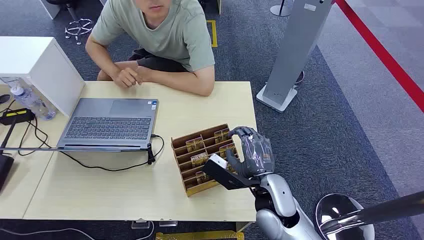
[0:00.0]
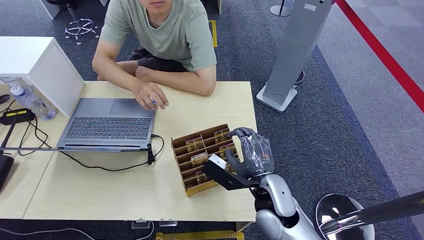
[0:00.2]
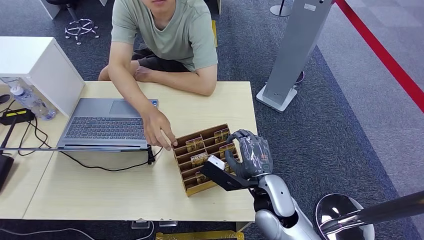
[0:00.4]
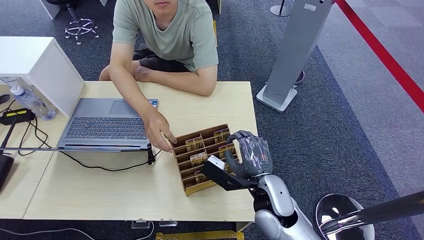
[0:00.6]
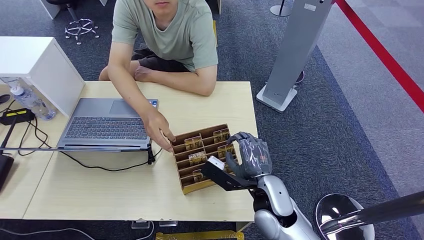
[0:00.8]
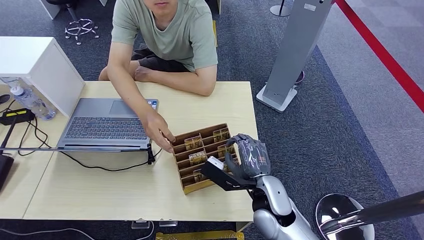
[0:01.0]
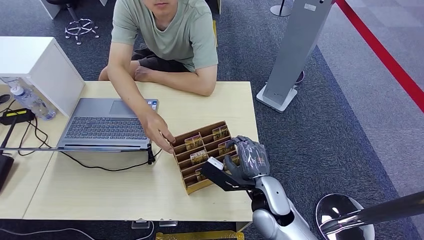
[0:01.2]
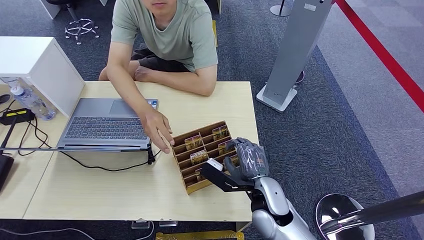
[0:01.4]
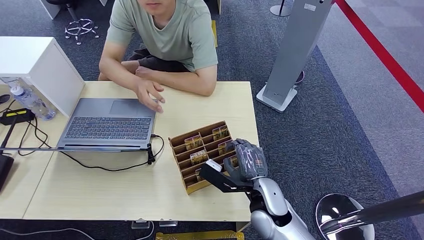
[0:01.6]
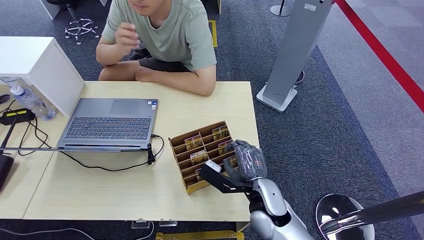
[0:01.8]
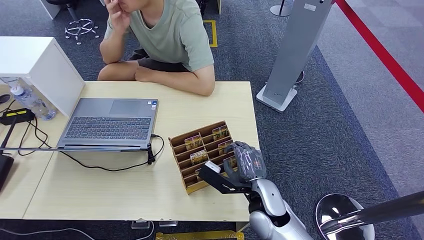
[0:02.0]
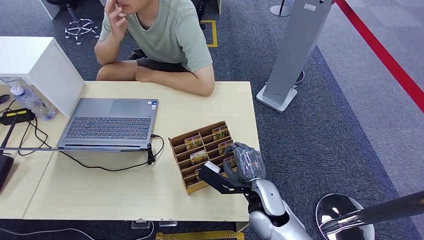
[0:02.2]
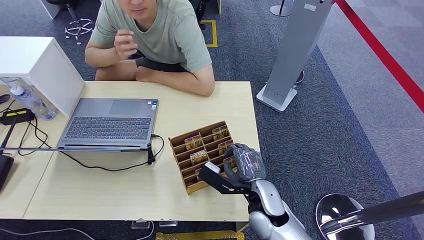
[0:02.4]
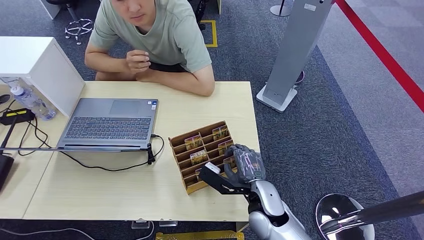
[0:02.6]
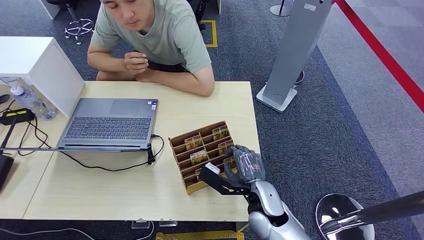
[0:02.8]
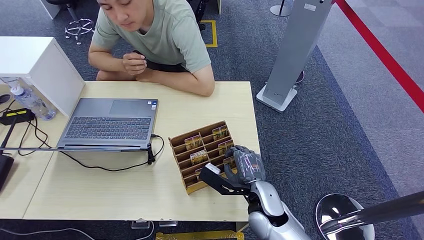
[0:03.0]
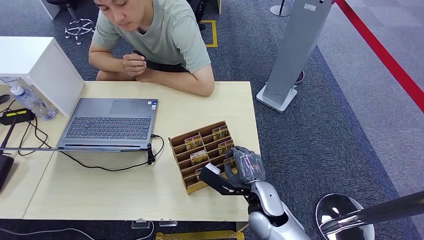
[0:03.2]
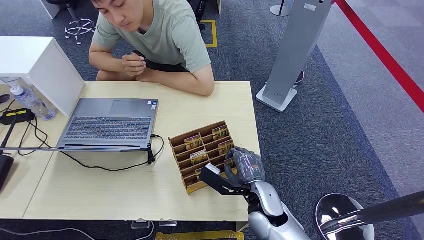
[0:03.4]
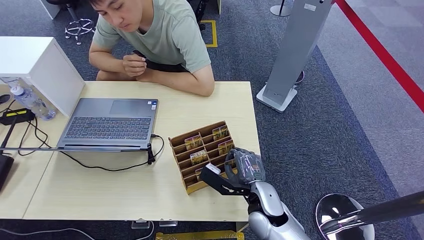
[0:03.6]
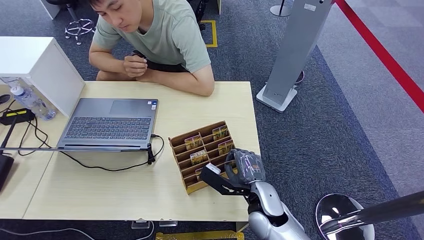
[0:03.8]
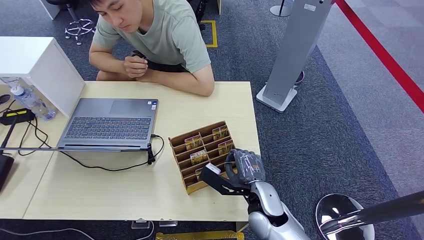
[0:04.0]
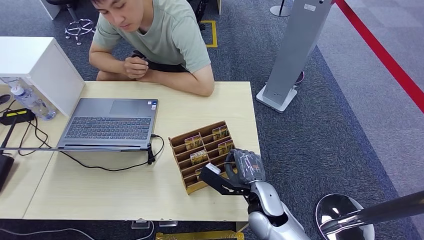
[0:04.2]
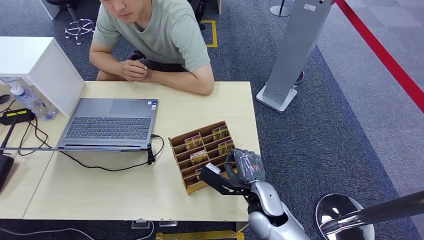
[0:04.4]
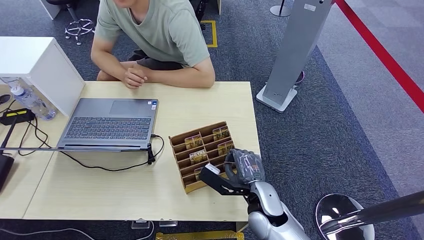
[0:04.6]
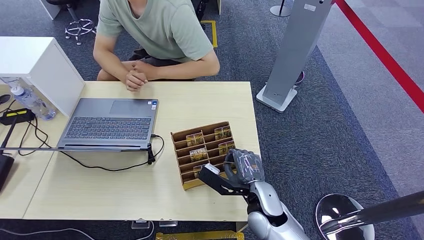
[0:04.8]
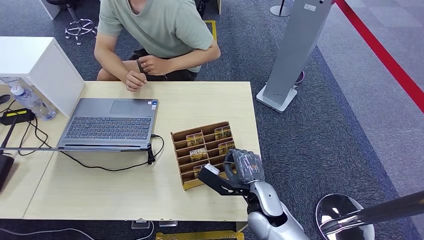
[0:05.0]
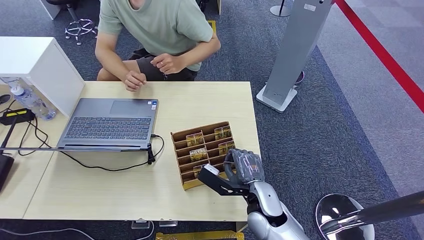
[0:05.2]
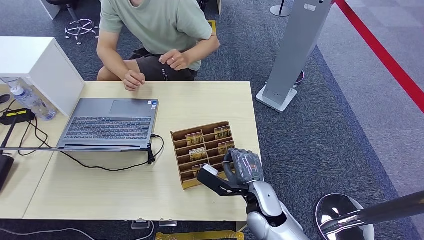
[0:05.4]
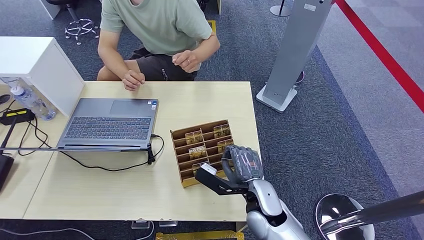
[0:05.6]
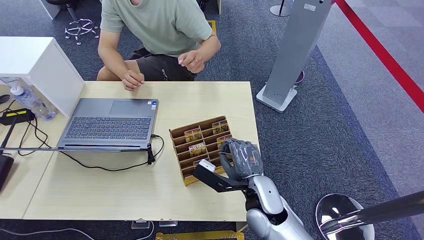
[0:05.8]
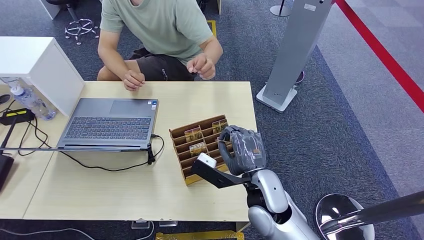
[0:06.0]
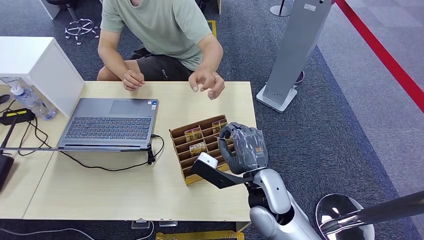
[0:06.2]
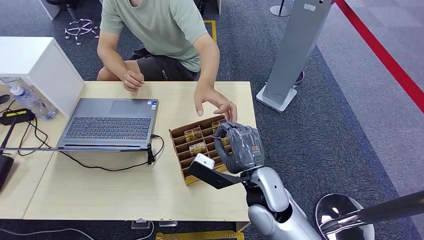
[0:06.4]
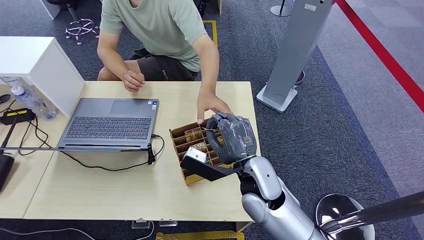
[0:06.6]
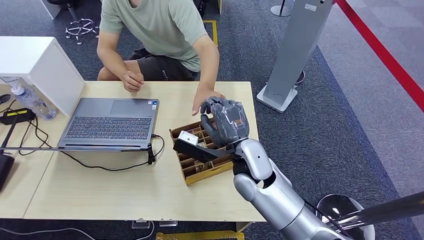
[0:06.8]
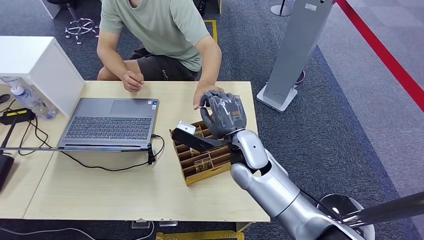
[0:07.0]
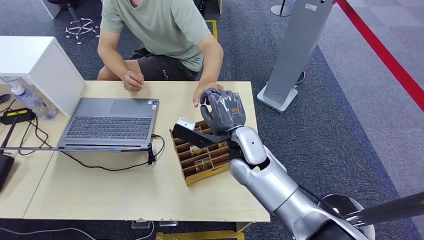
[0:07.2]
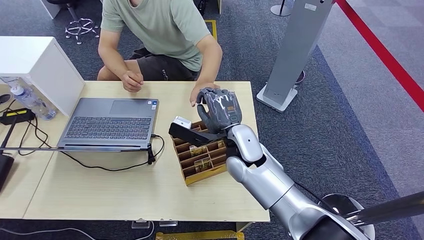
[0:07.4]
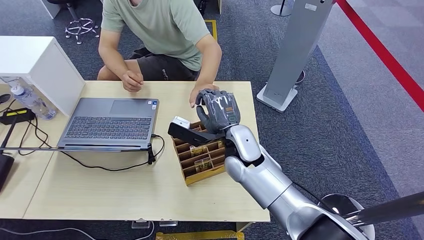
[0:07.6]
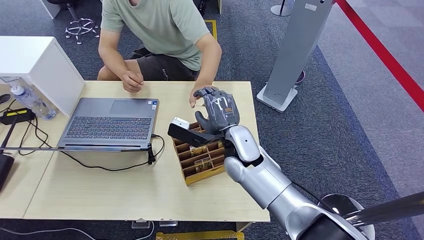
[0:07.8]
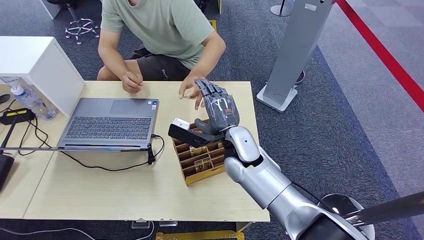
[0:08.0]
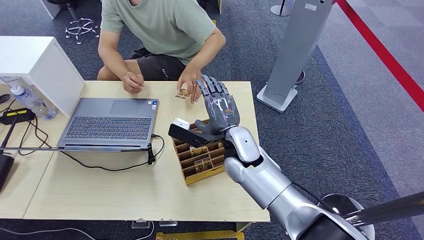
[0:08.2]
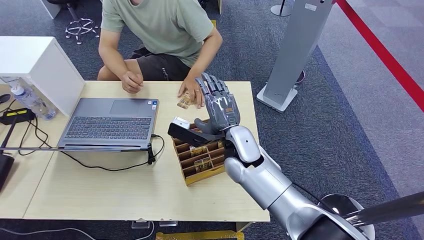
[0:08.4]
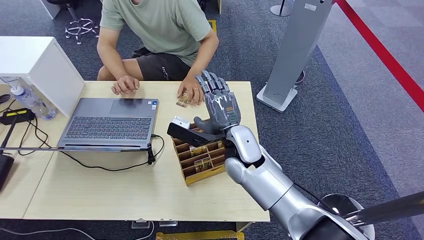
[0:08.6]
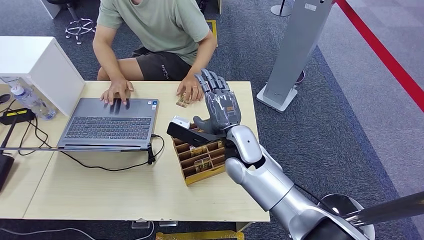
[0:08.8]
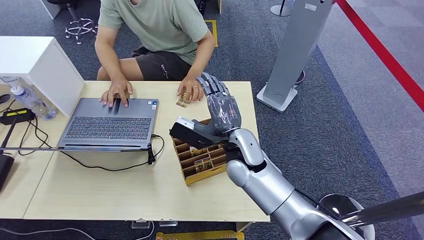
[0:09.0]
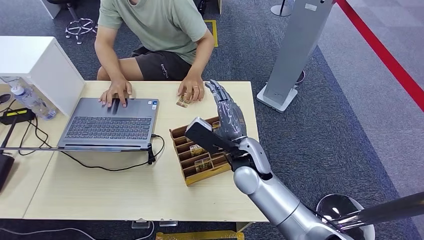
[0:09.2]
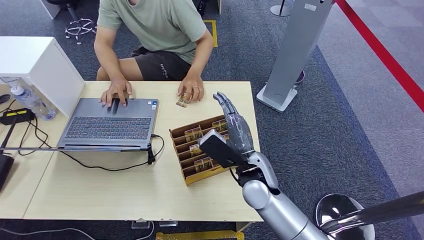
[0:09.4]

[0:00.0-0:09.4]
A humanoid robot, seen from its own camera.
Step, 0:00.0 to 0:06.0: Pick up the key card from the card box.
Step, 0:06.2 to 0:09.4: Hand the key card to the target.
0:01.6 to 0:03.2: The hands stay close to where they were, moving slightly.
0:03.2 to 0:04.8: Neither hand changes place.
0:04.8 to 0:06.2: The right hand heads upward, covering some 10 cm.
0:06.2 to 0:07.8: The right hand travels forward and to the left by some 10 cm.
0:07.8 to 0:09.4: The right hand shifts about 5 cm backward.
